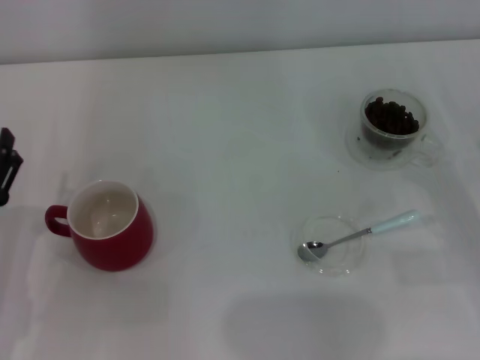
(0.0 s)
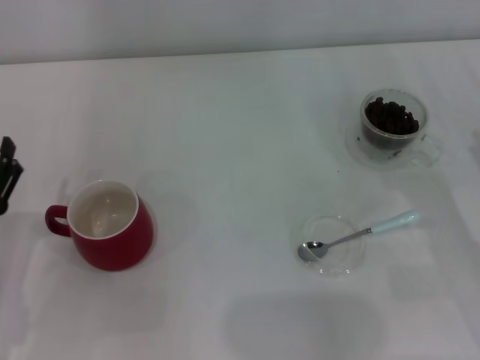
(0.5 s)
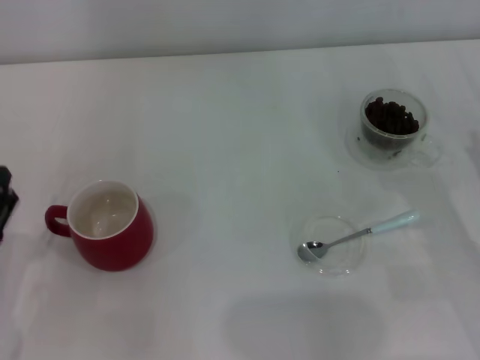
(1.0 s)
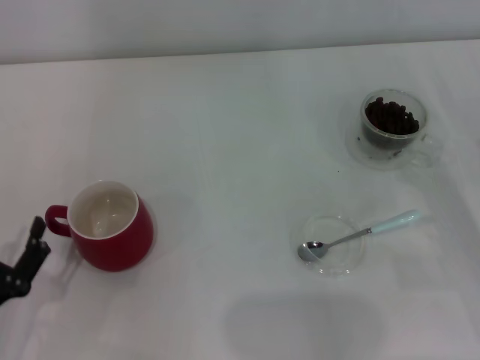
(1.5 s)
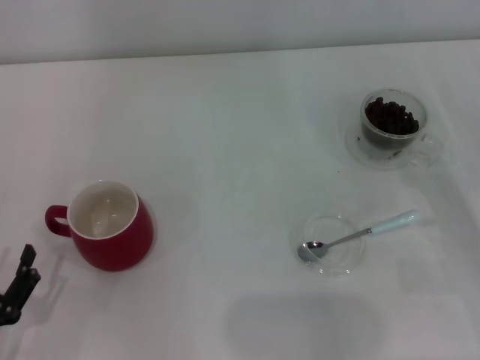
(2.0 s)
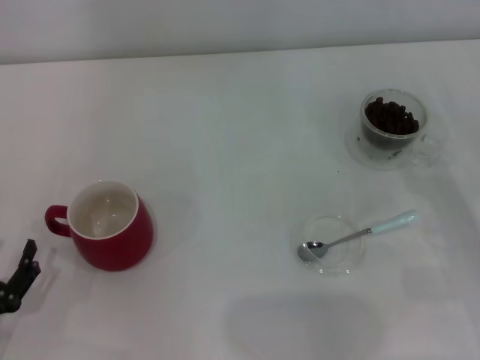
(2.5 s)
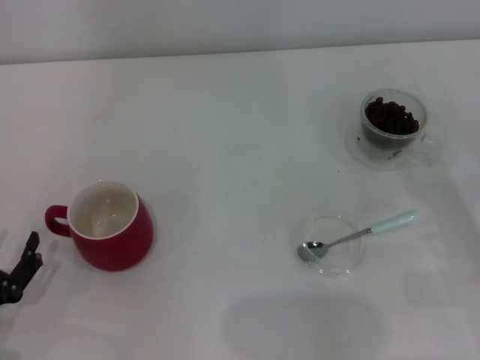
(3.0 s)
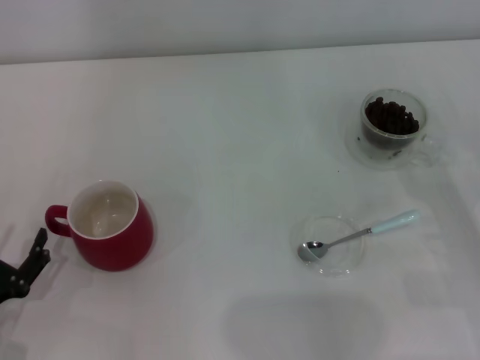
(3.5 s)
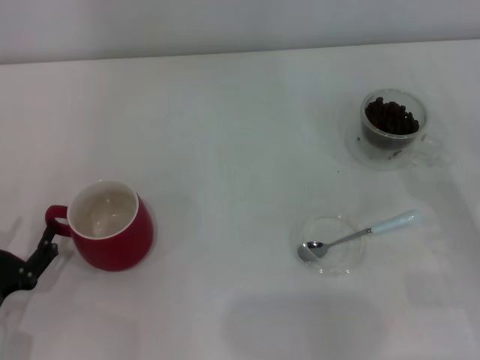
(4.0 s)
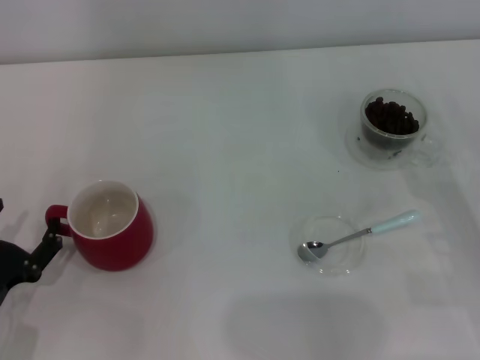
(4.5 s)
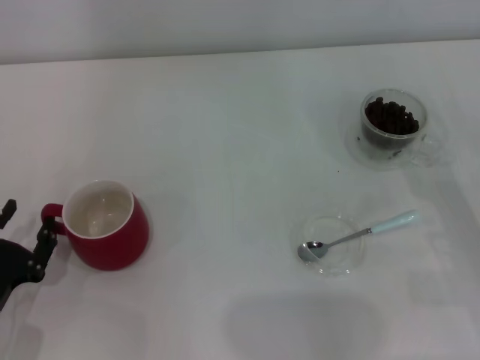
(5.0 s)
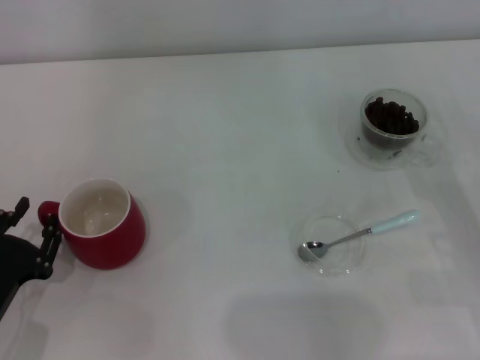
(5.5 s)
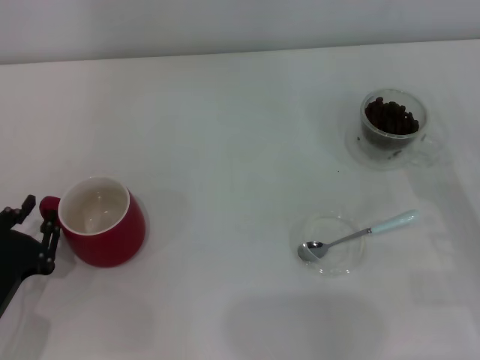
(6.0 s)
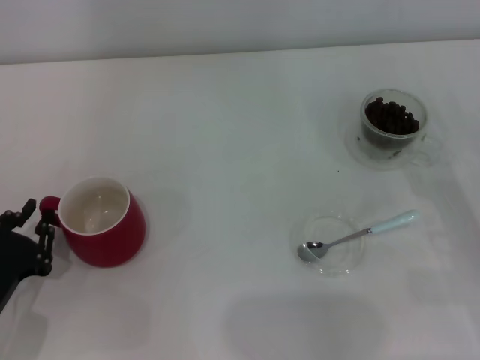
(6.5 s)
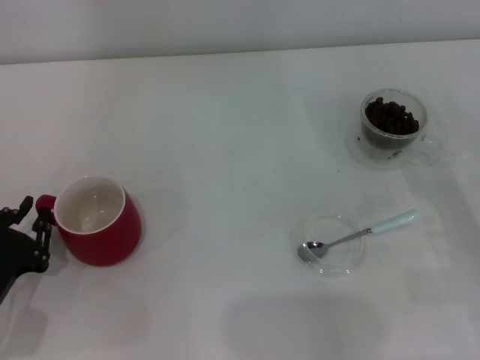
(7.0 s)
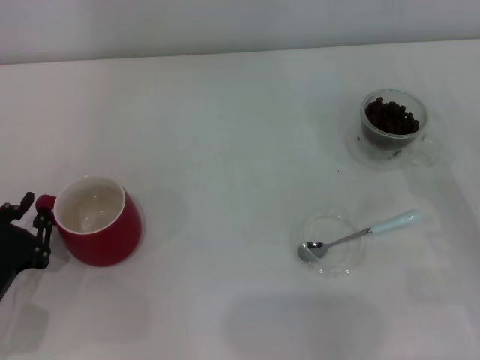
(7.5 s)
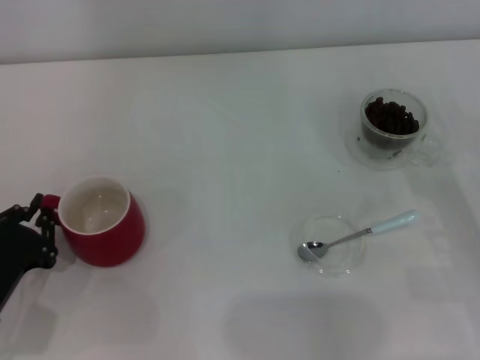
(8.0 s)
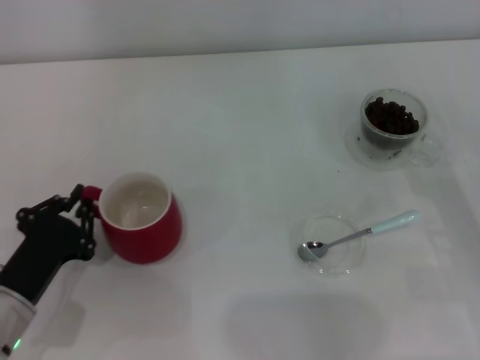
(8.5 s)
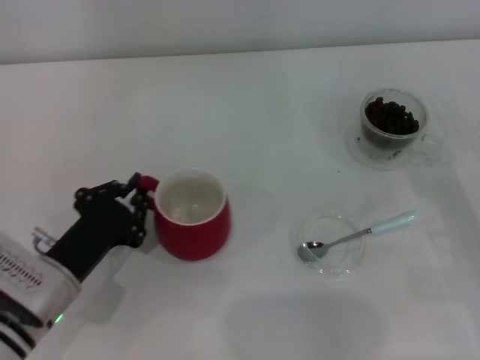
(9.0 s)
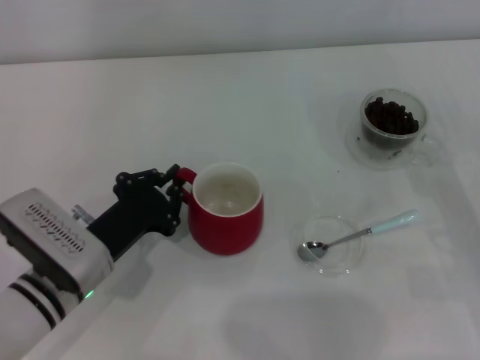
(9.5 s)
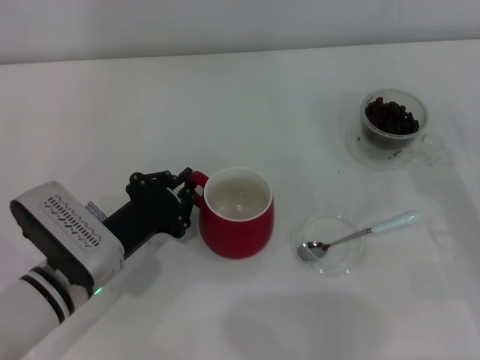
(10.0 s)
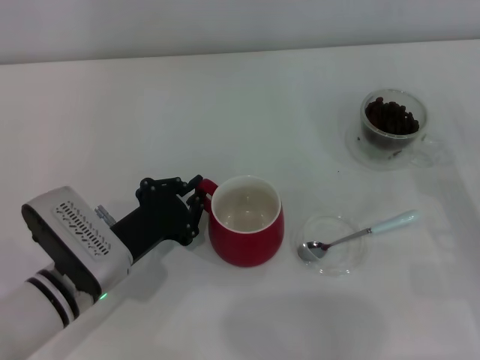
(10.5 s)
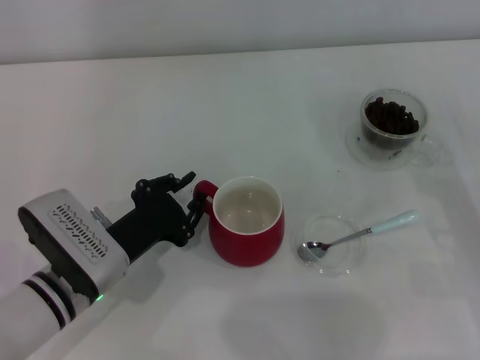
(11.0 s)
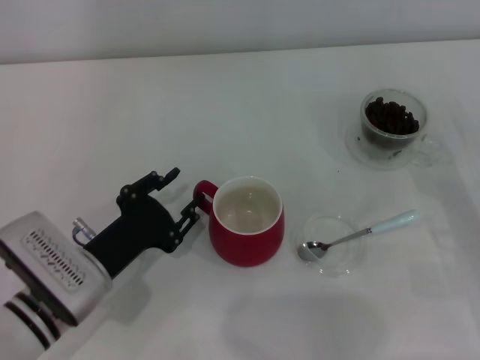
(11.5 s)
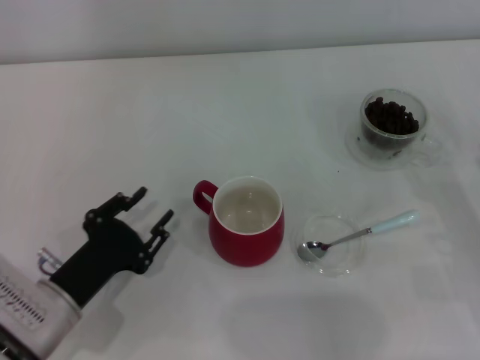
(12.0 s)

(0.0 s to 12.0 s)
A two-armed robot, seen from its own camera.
Task of the whole recording: Use a blue spoon to take out the coffee beans from the glass and pour them into the red cup.
Step, 0.0 s - 11.5 s: Move the cup to the center of view with the left gripper.
0.0 s - 2.0 s: The left gripper goes about 10 cm backward.
2.0 s - 4.0 s: The left gripper goes roughly 5 cm forward.
4.0 s - 6.0 s: The left gripper closes its fingers.
6.0 s - 8.0 s: The left gripper closes up.
8.0 s - 10.0 s: The left gripper shifts about 10 cm to the right and forward.
10.0 s - 12.0 s: The left gripper shifts by about 5 cm, and opens.

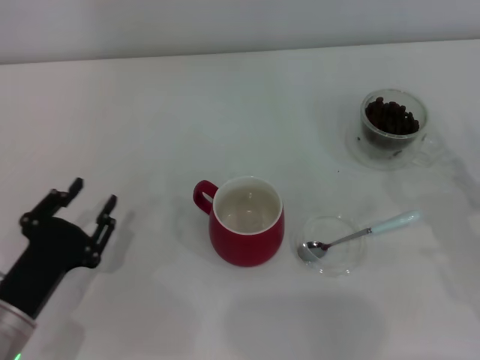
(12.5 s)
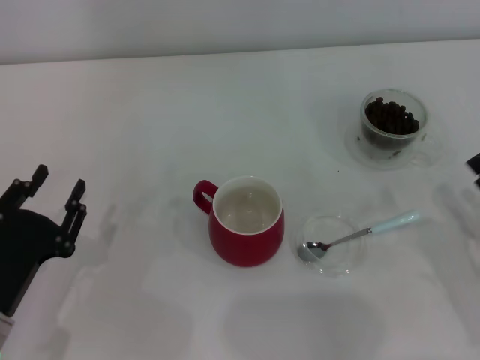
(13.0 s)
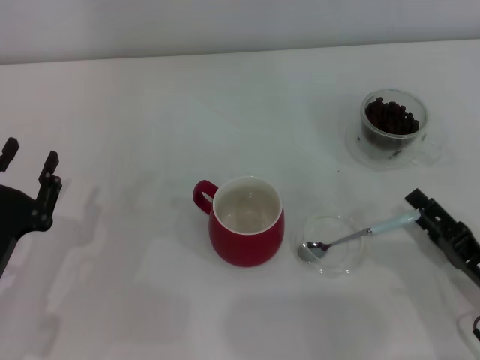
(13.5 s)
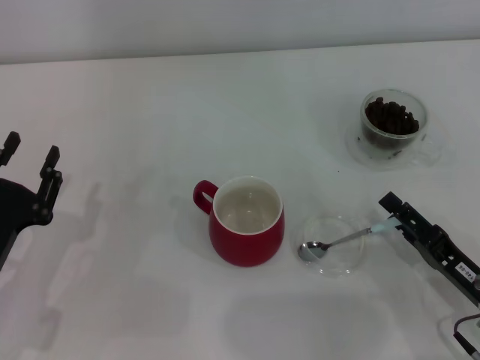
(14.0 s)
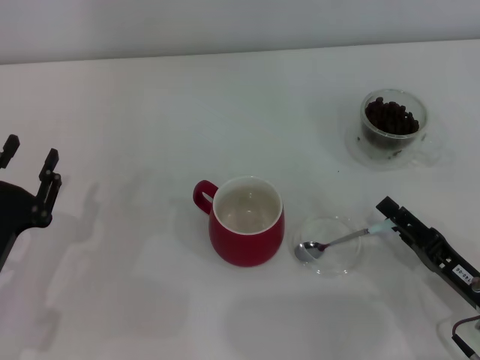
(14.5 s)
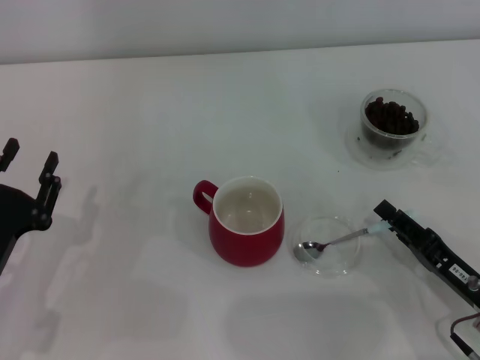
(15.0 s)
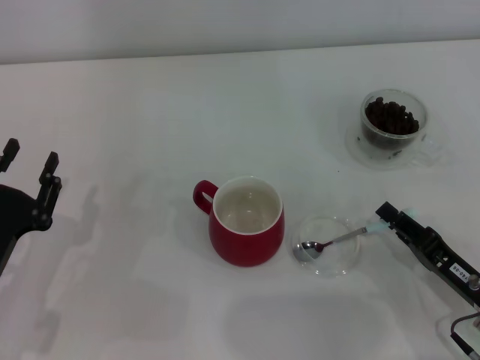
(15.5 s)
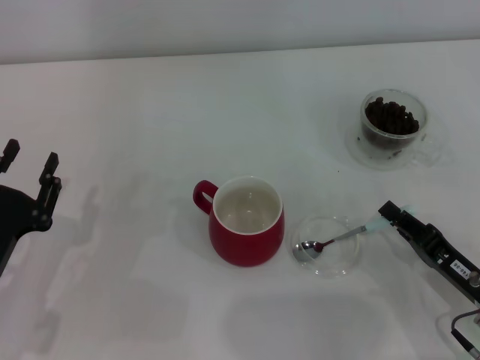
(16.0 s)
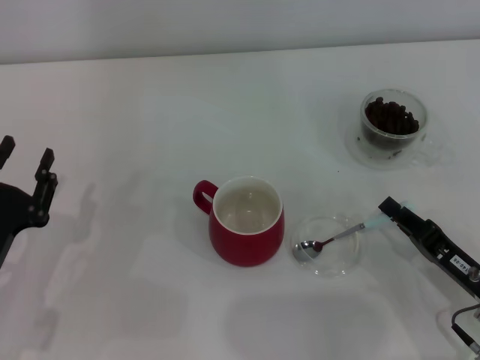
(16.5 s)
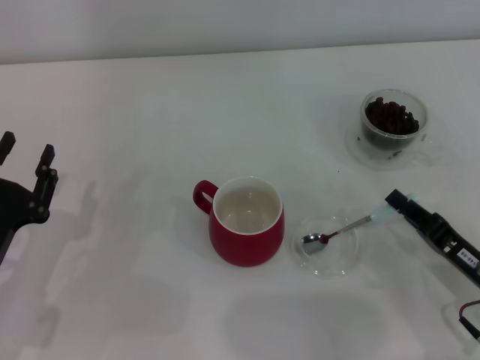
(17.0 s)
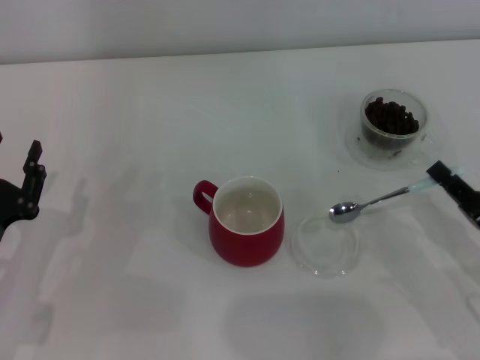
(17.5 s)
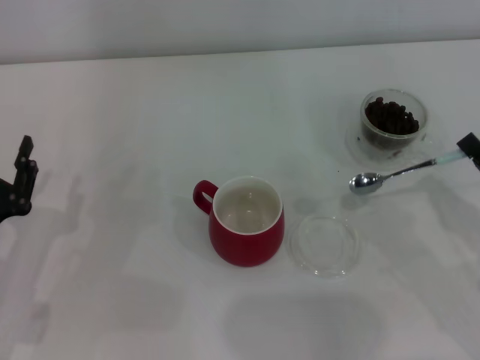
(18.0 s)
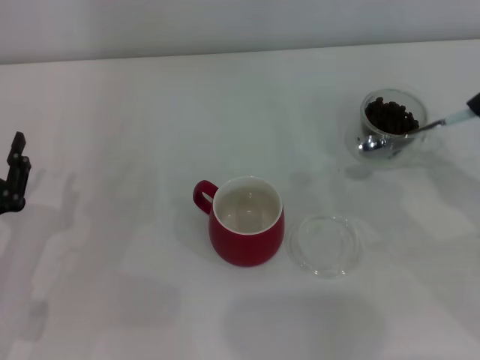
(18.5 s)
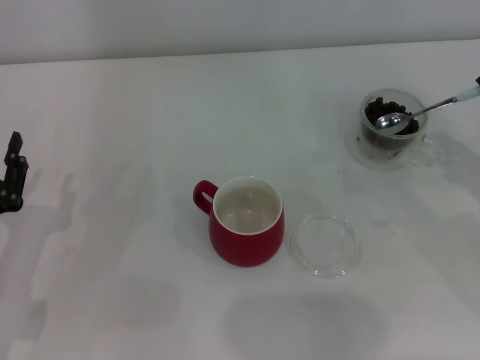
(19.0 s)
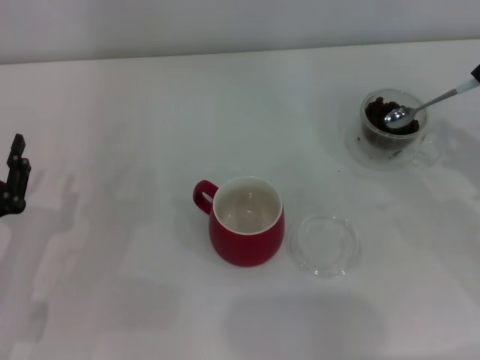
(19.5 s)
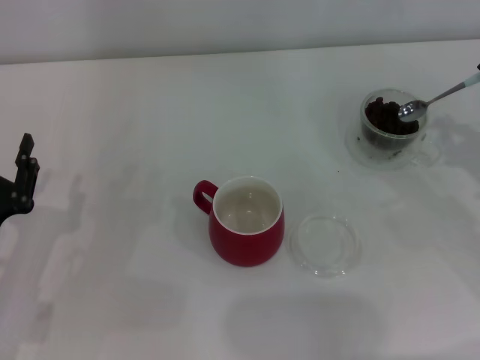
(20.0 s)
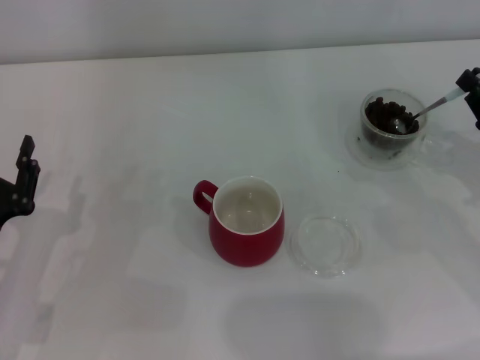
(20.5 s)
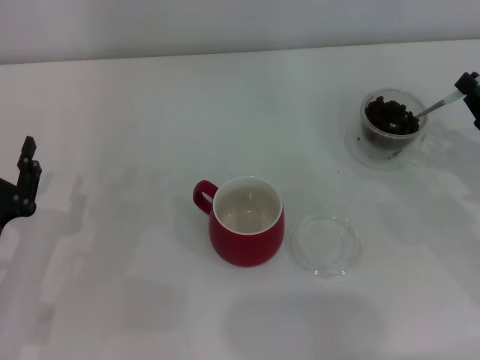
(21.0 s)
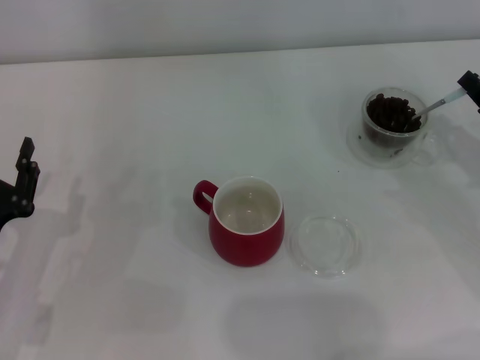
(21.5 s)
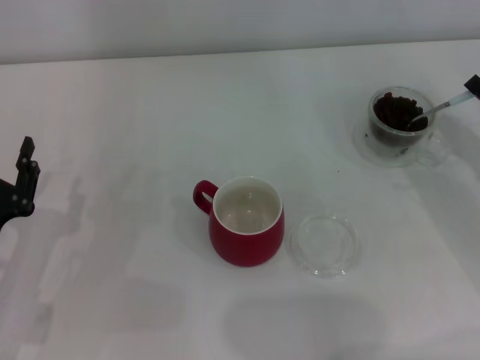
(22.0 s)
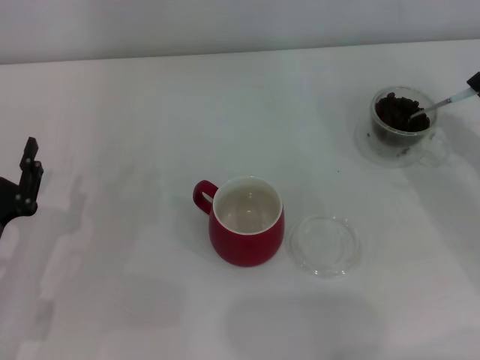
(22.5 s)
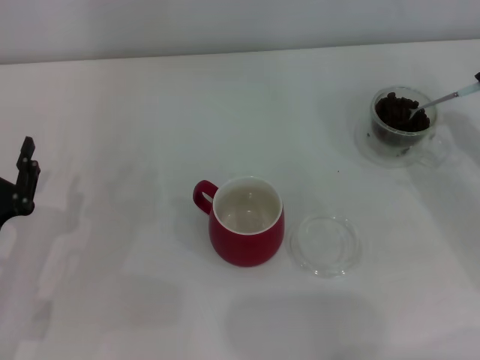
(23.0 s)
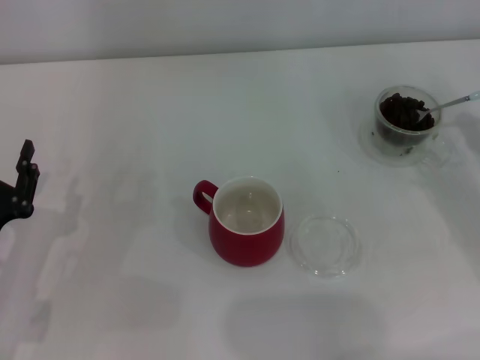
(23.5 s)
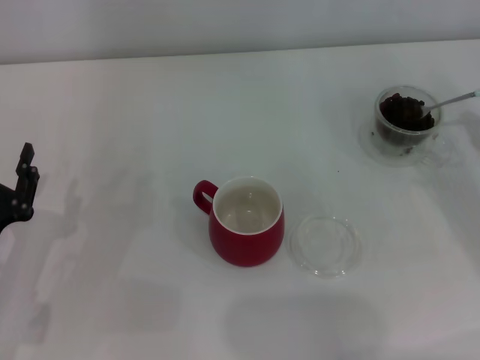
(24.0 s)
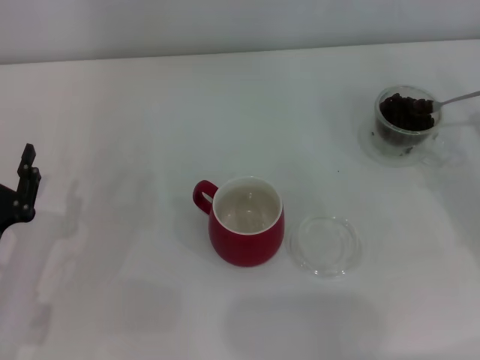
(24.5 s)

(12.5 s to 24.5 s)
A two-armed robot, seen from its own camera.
Task of the whole recording: Use a blue spoon to take out the coffee beans from the glass and pour them into the red cup.
Step, 12.5 s - 17.5 s: Pick up the spoon with the right gripper.
12.5 s - 14.5 s: The right gripper shifts some 10 cm to the left.
14.5 s - 16.5 s: The right gripper closes its fingers.
16.5 s - 18.5 s: The right gripper goes some 10 cm to the right and upward.
18.5 s - 20.5 s: The right gripper shifts by approximately 5 cm.
22.5 s - 24.5 s: There are only small adjustments of the grippers.

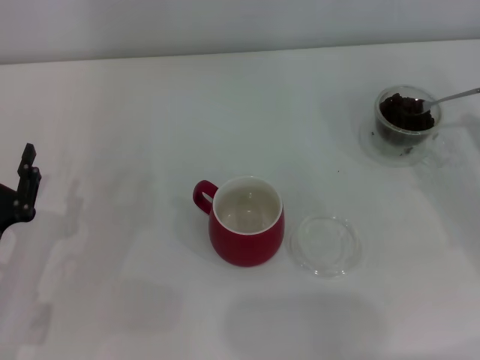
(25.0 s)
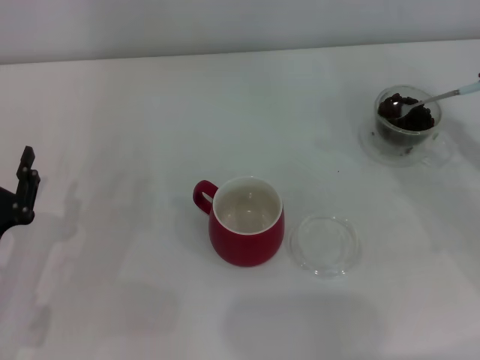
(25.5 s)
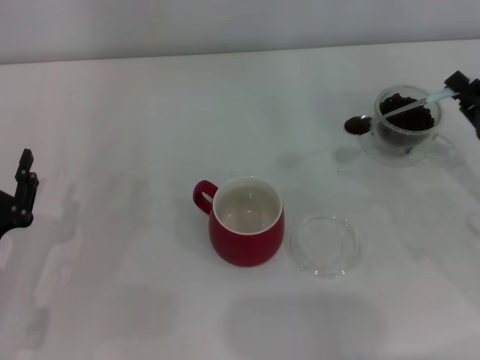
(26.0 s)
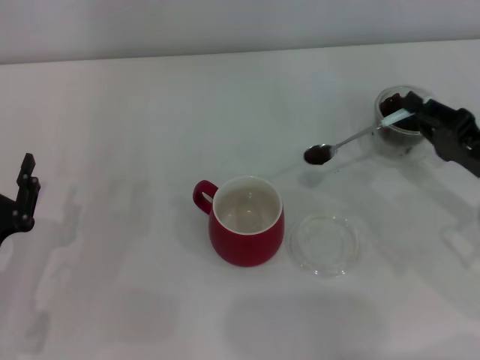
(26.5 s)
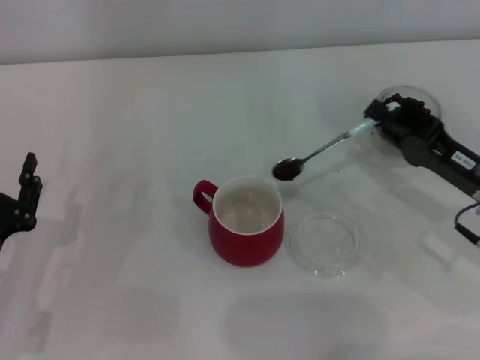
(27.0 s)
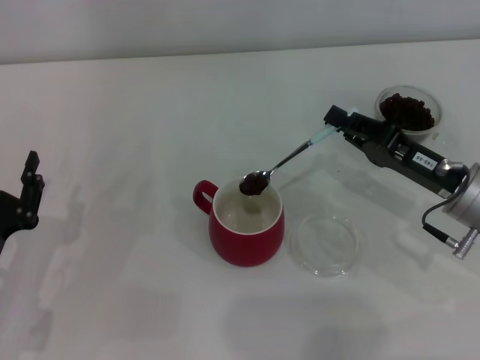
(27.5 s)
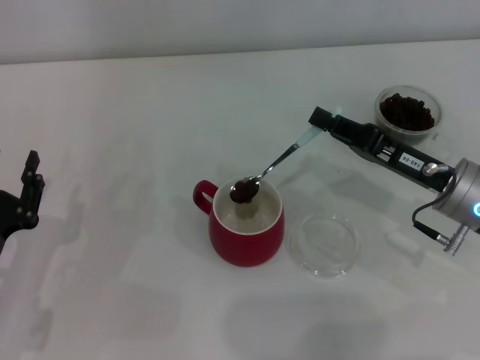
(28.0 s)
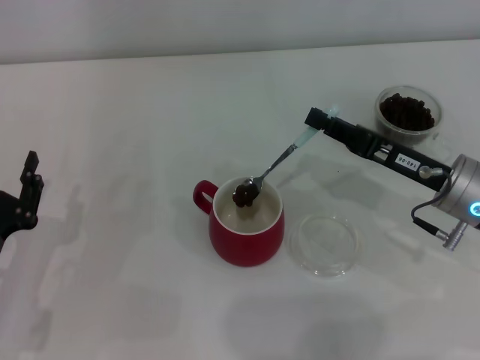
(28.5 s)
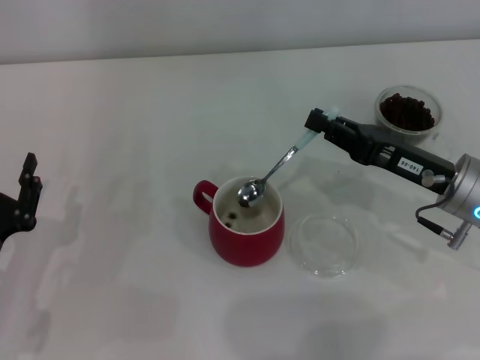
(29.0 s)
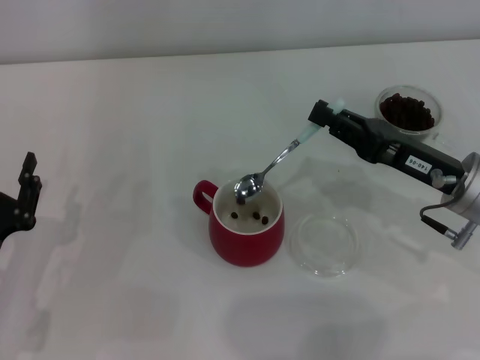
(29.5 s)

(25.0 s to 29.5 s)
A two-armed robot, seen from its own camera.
Task of the whole recording: Use a blue spoon to take out the coffee beans from the glass and pour them into the red cup.
25.0 s - 27.0 s: The right gripper shifts roughly 10 cm to the left.
